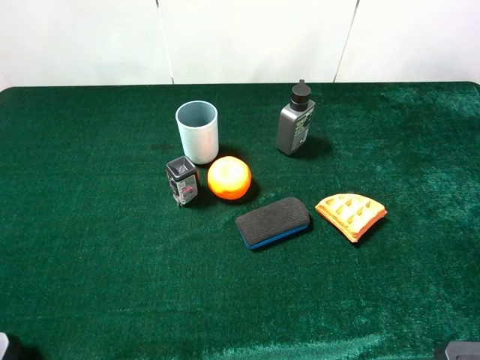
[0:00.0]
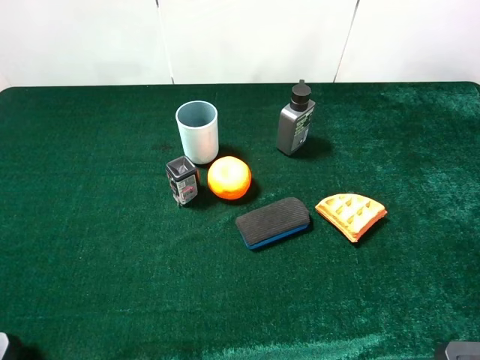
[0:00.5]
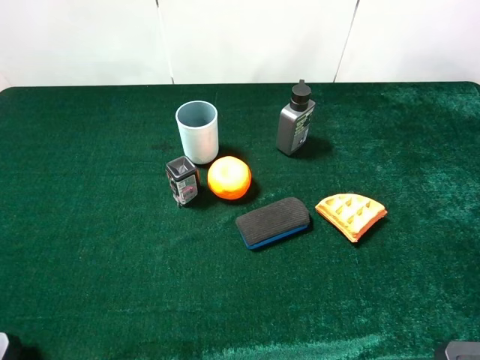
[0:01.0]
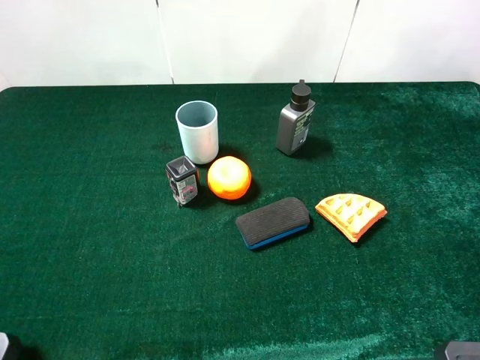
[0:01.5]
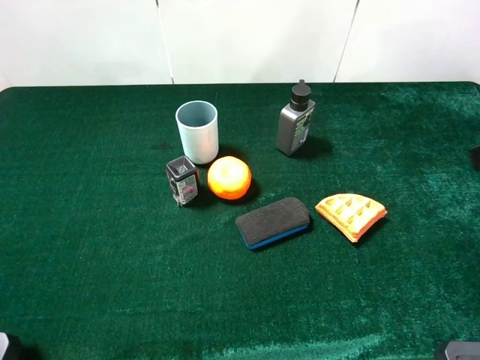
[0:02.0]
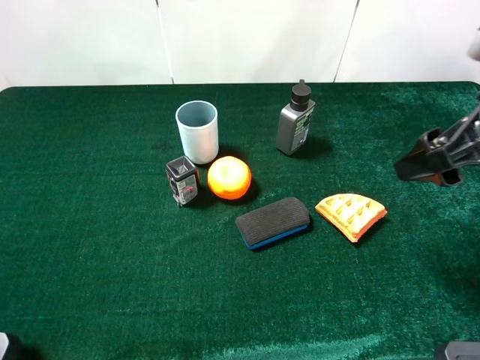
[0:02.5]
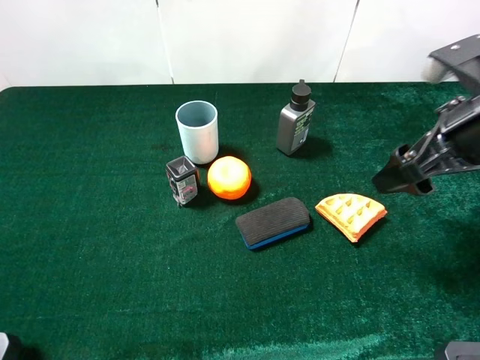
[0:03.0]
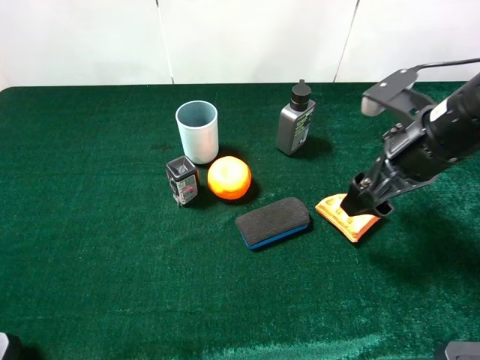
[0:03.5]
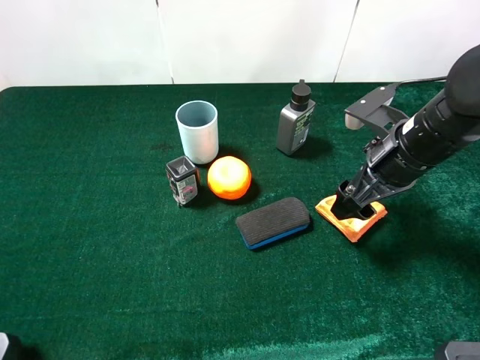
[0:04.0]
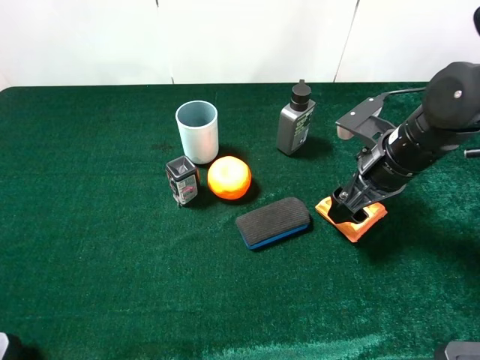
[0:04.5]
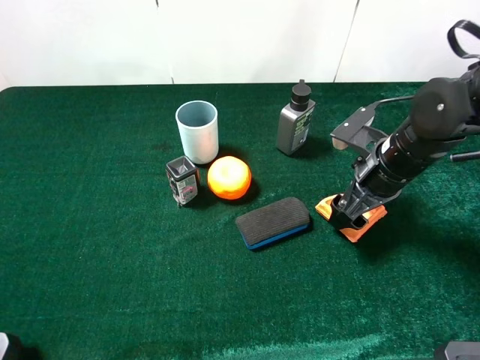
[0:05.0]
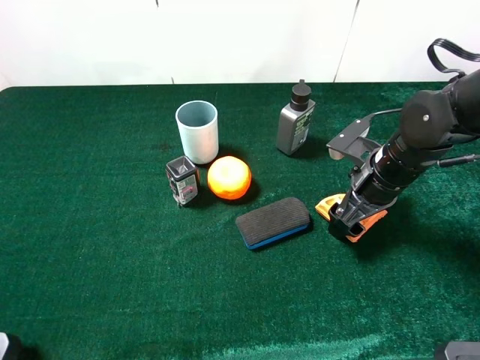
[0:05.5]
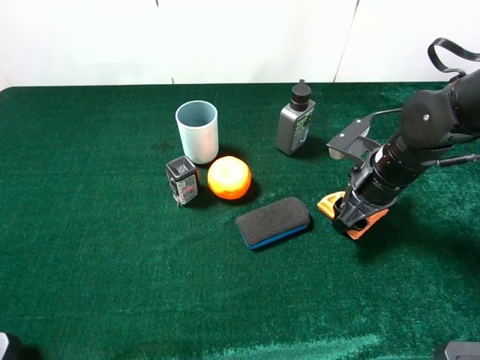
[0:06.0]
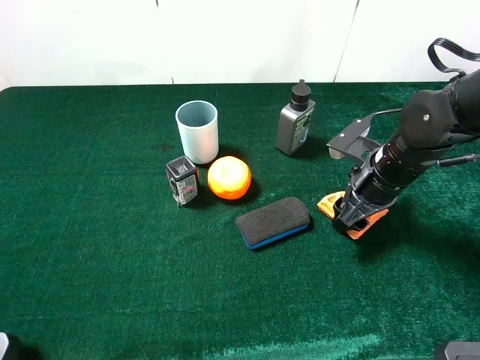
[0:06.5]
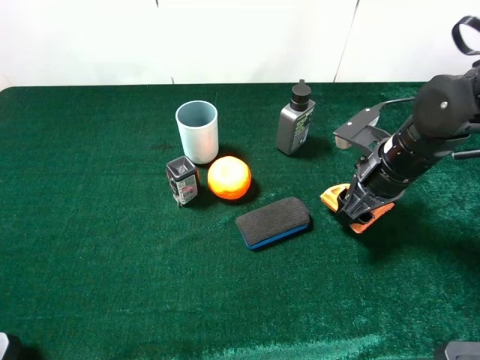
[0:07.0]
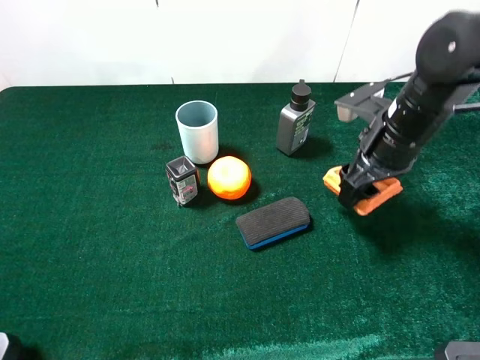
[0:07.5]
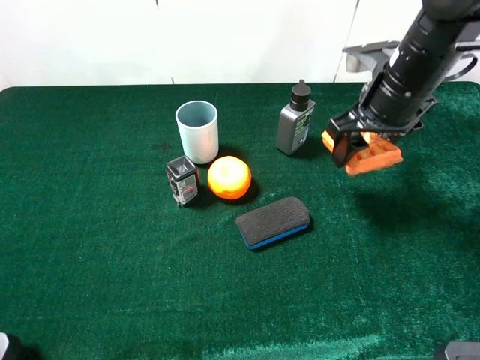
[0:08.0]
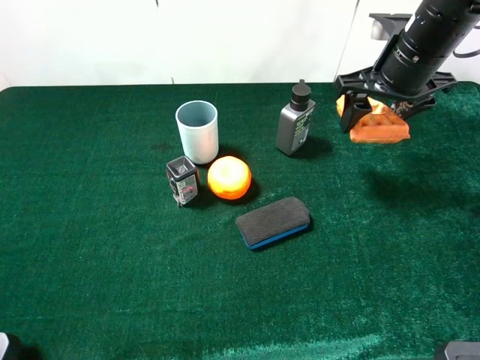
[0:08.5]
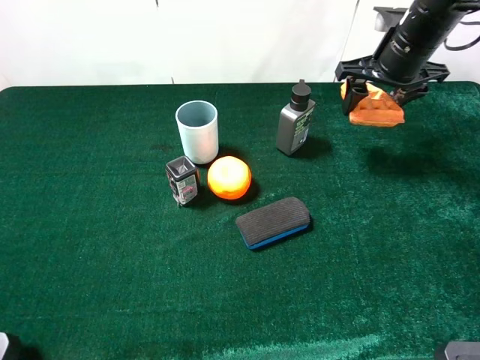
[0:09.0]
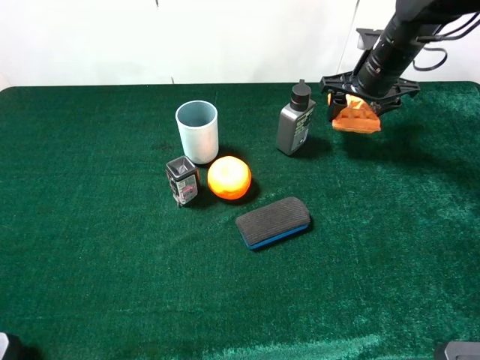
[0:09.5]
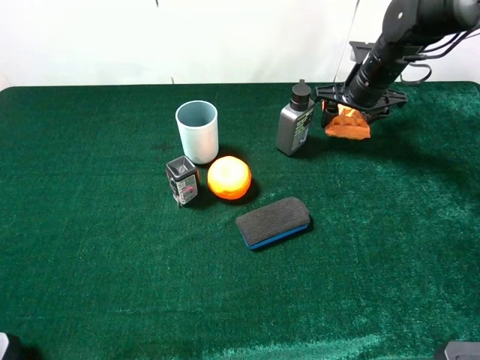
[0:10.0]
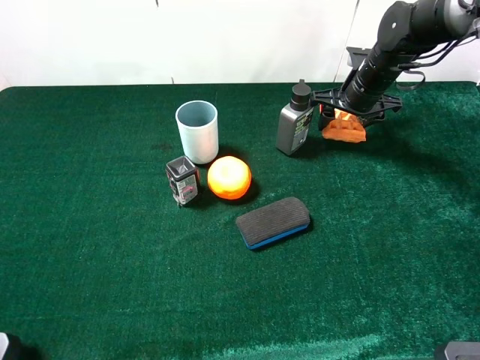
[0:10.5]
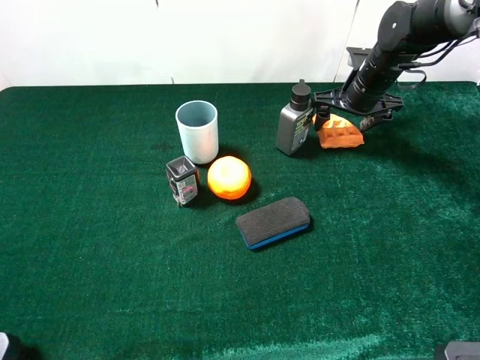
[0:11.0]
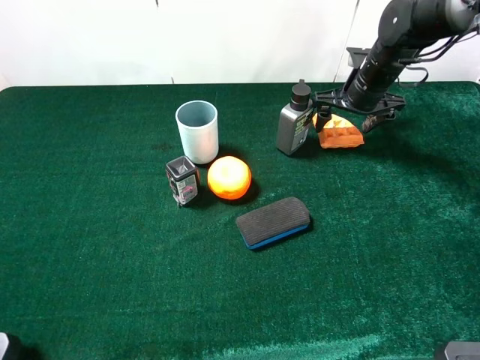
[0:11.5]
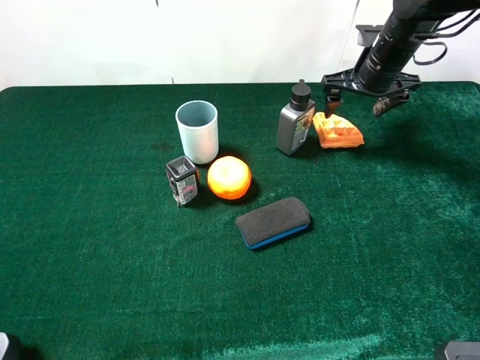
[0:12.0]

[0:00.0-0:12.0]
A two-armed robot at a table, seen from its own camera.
Task of the whole recording: the gripper move the object.
Step, 0:00.0 to 0:06.5: Grasp the wallfe with the right gripper.
0:02.0 to 0:04.0: The right gripper goes some 20 cm downward, forward and to the left.
0:04.0 to 0:06.0: The right gripper travels downward by some 5 cm, and closes up.
0:06.0 to 0:08.0: The right gripper is displaced upward by approximately 10 cm.
0:08.0 to 0:10.0: The right gripper shifts about 15 cm forward and downward.
0:10.0 to 0:12.0: The right gripper opens its fingers.

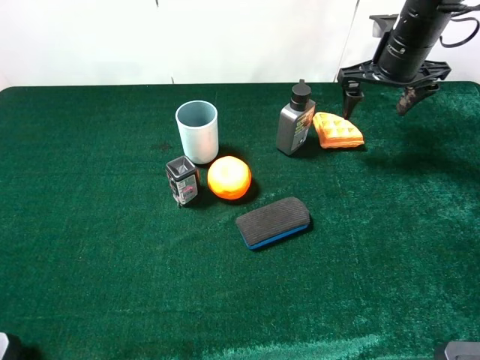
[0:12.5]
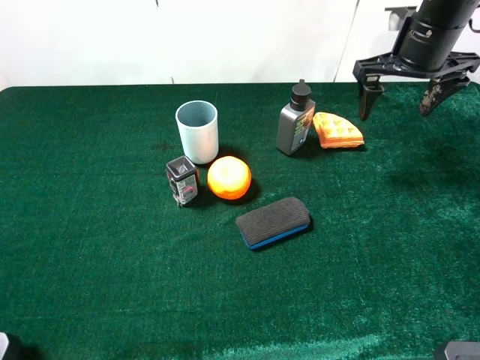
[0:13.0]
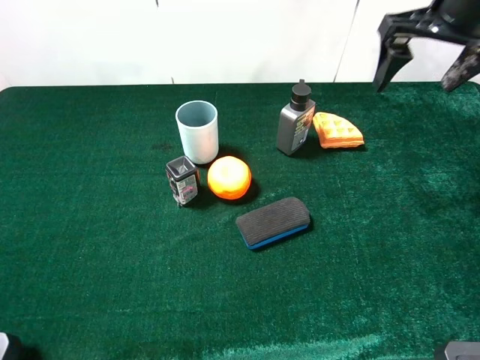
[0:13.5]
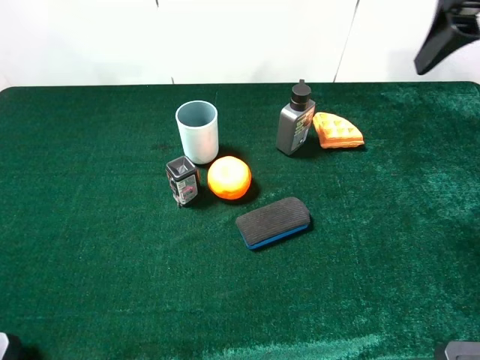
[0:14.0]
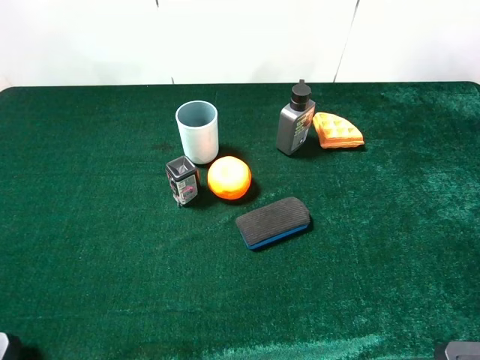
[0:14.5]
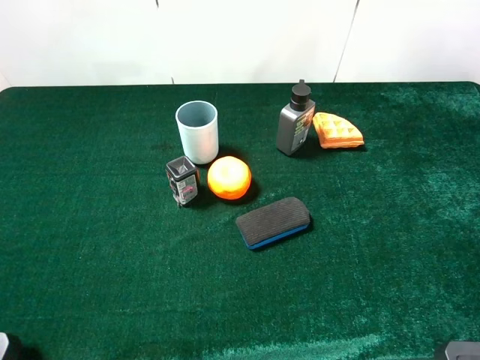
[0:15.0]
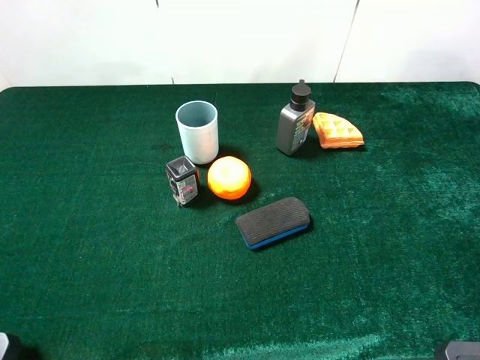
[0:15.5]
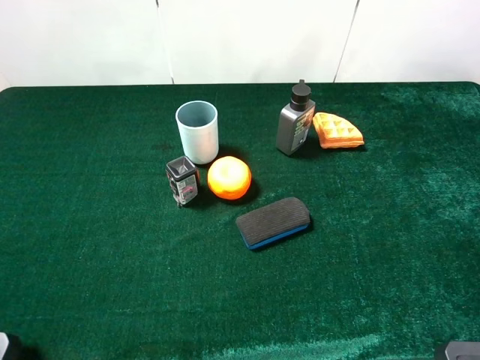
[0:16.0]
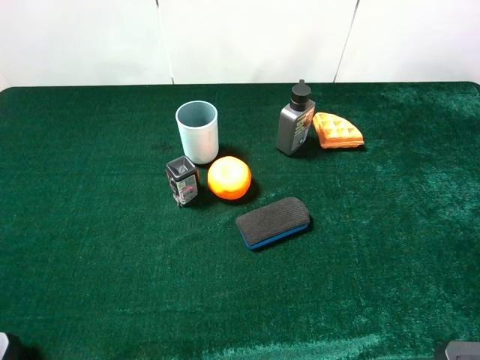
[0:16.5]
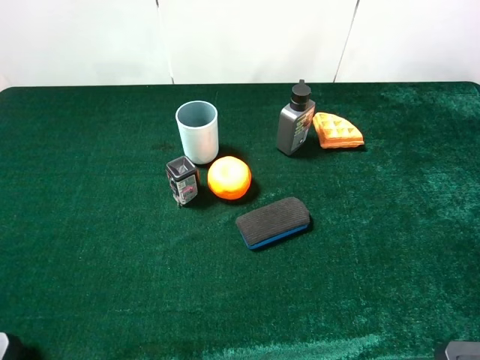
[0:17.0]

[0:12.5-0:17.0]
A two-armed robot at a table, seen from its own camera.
Task of the whole recording: the gripper move the object.
0:12.5 to 0:14.5: The right gripper travels backward and upward by some 30 cm.

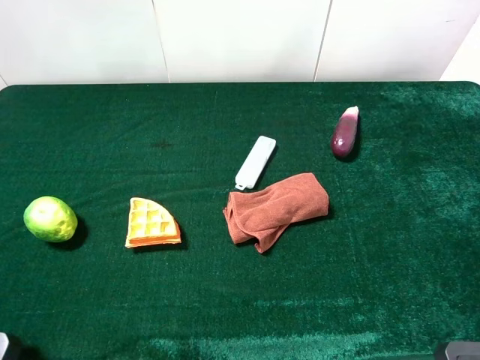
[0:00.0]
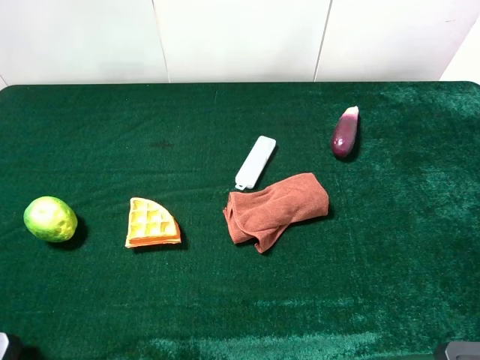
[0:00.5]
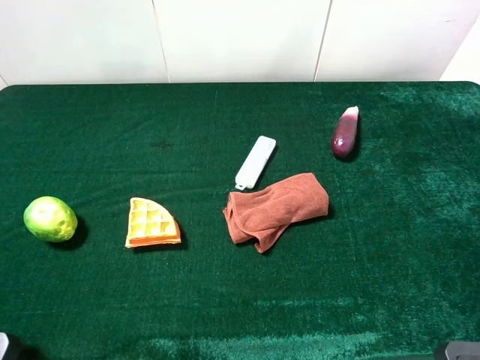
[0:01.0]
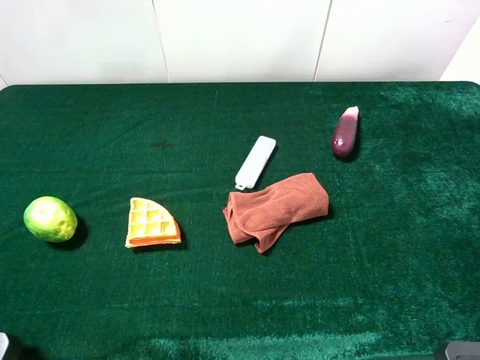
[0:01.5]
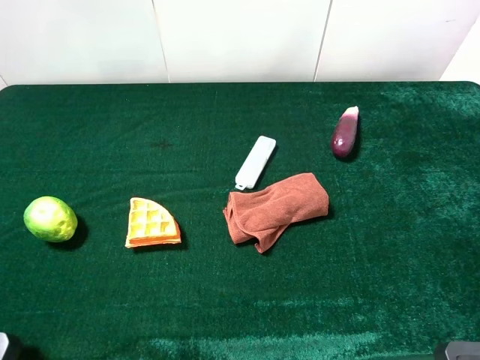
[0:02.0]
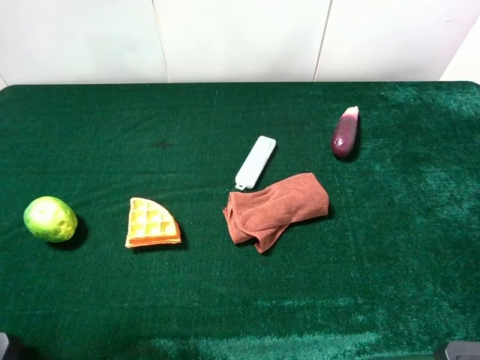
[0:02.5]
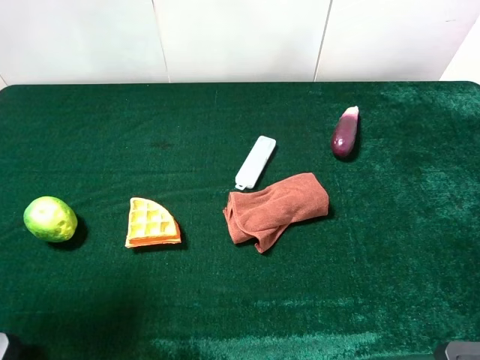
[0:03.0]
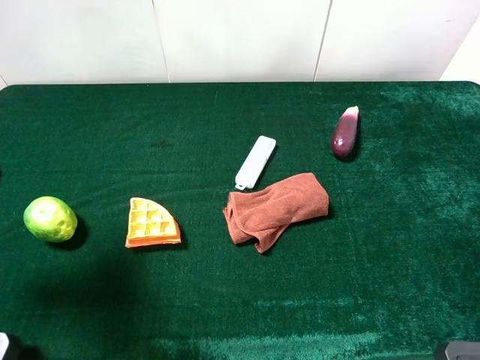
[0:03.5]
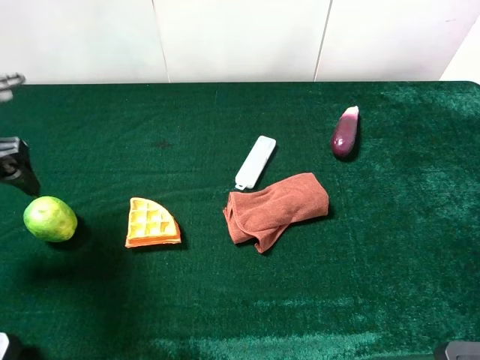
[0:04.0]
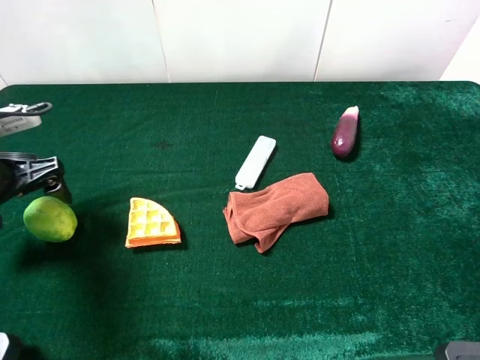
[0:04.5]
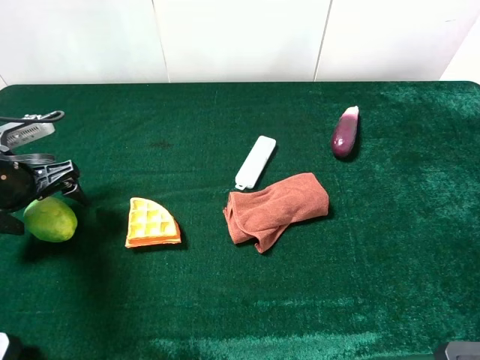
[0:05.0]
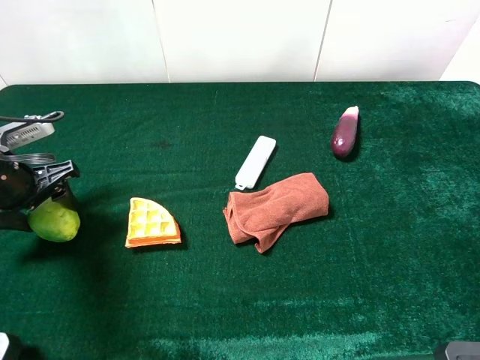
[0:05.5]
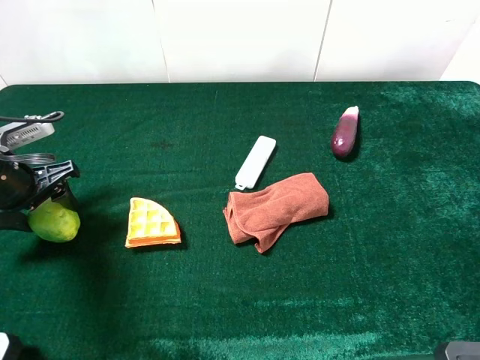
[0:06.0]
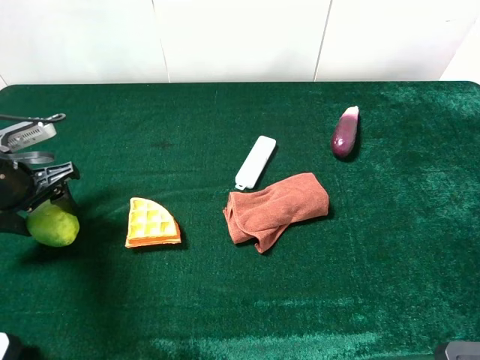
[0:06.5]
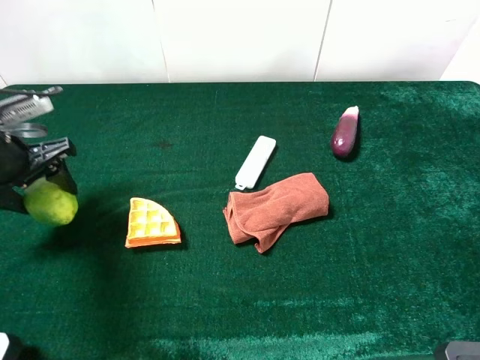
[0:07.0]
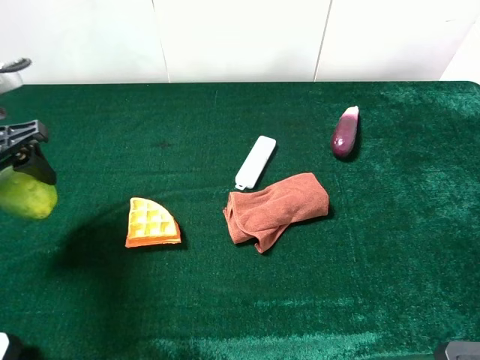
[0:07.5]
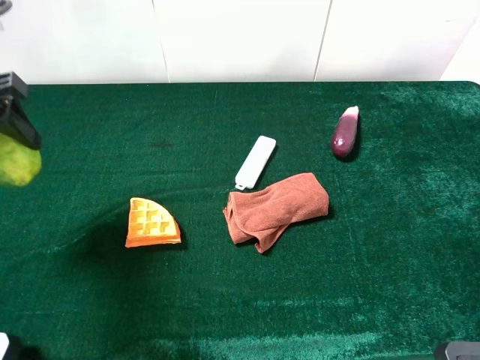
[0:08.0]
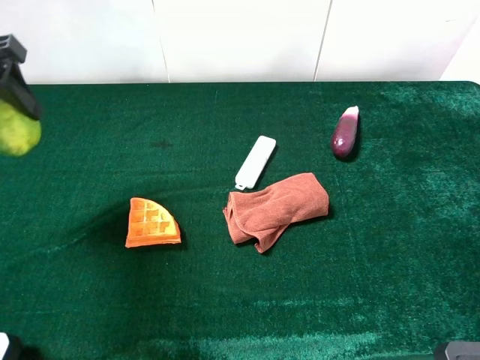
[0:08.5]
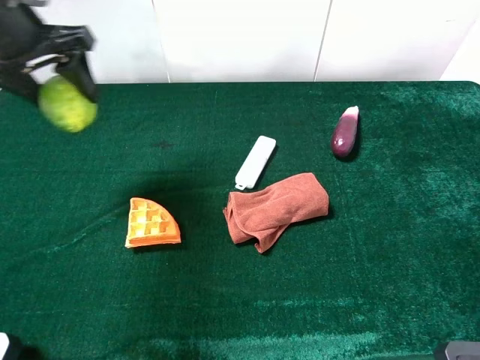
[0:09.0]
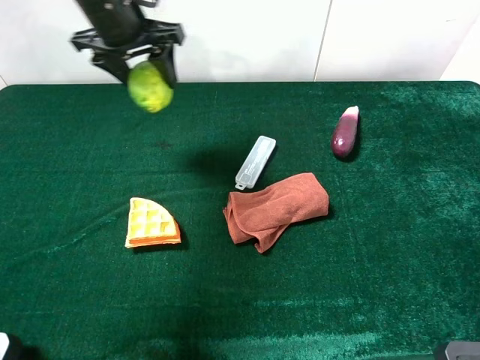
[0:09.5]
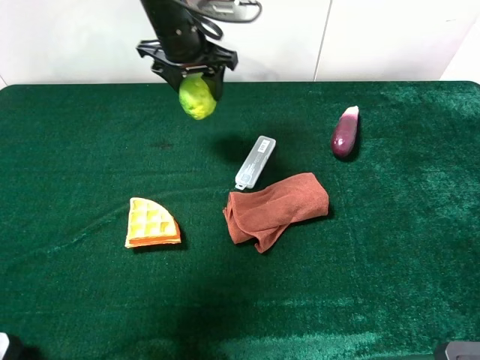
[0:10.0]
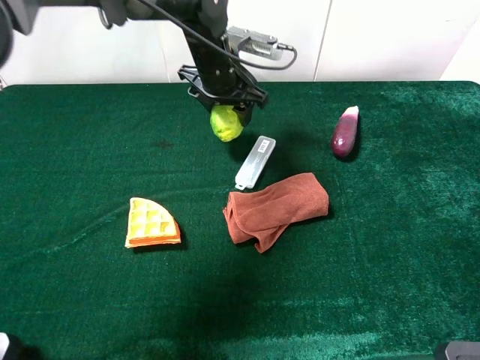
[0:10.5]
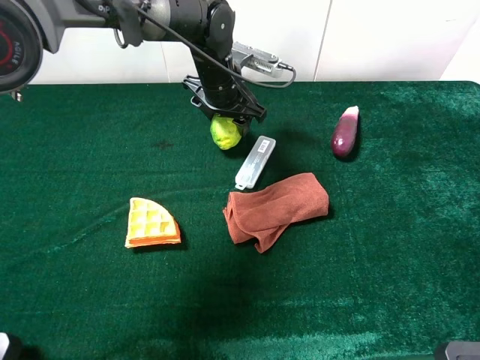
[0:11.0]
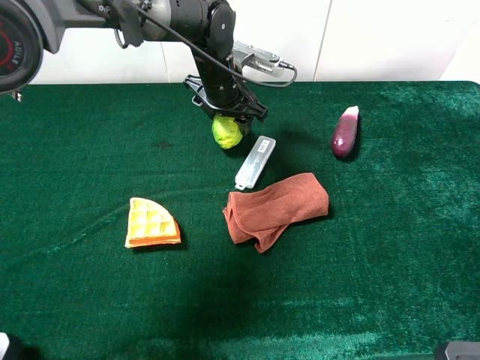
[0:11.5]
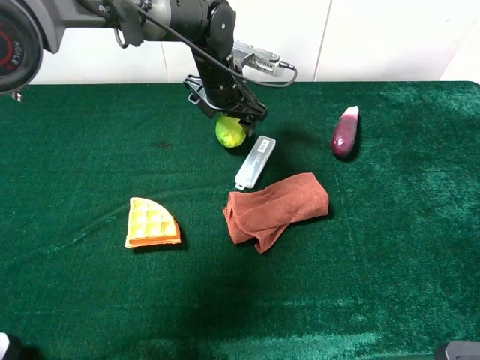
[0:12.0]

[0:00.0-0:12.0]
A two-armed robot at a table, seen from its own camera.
Task of the whole recording: the gripper move the object.
Step, 0:00.0 to 0:06.0: Grasp the green lemon with the left gripper.
0:00.0 to 0:02.0: The two grippers keep their place.
0:02.0 to 0:04.0: The left gripper heads forward and downward, covering roughly 20 cm.
0:04.0 to 0:06.0: The left gripper heads downward, covering some 10 cm, and closes.
0:06.0 to 0:08.0: The left gripper moves upward, approximately 15 cm.
0:08.0 to 0:10.0: The left gripper moves to the right and forward, about 30 cm.
0:10.0 to 0:12.0: The left gripper goes roughly 10 cm downward and to the right, and opens up.
